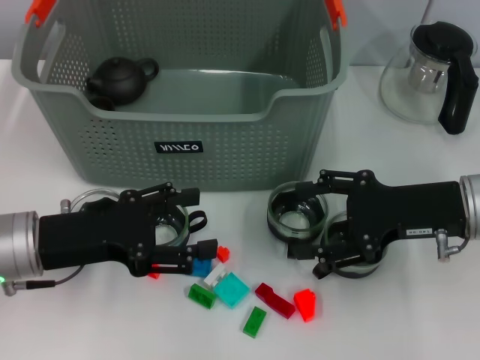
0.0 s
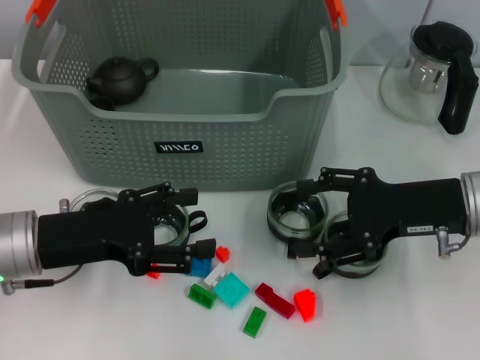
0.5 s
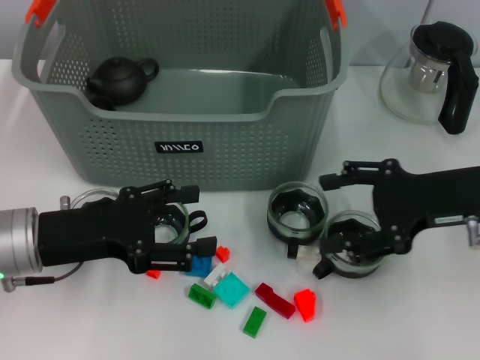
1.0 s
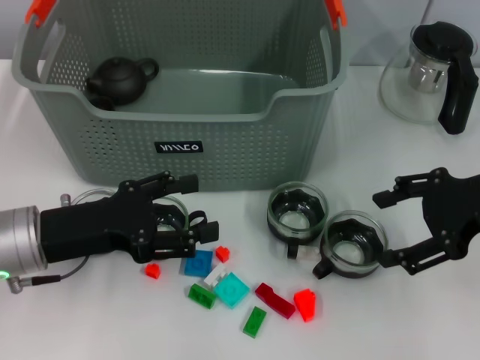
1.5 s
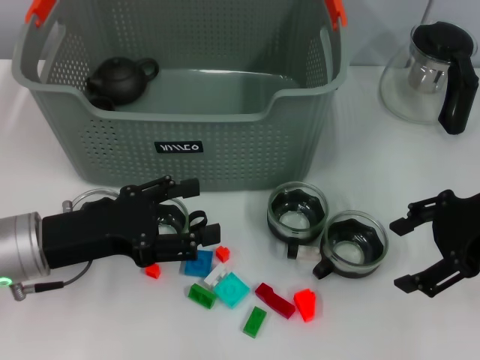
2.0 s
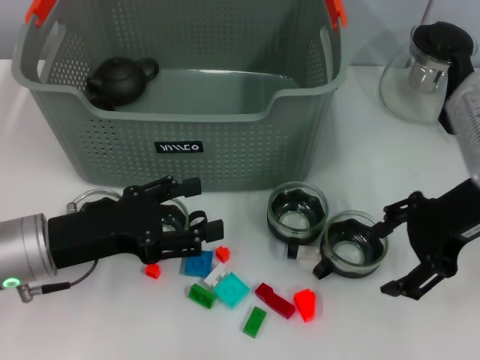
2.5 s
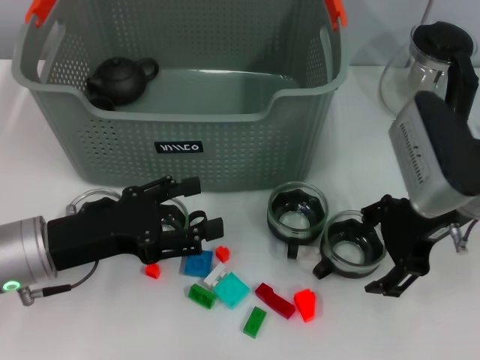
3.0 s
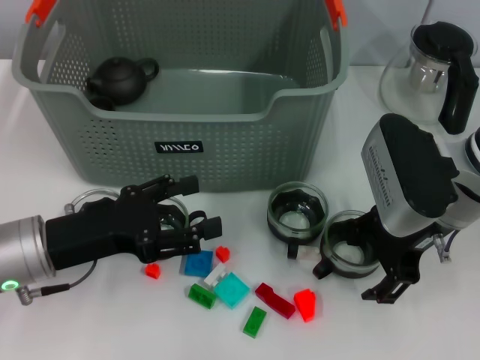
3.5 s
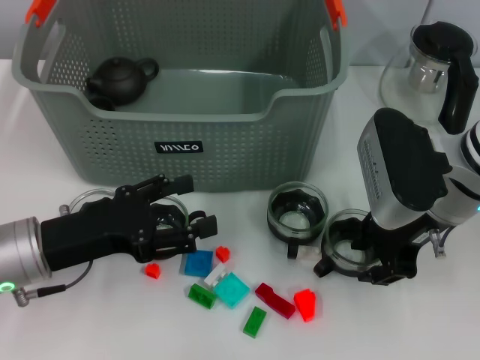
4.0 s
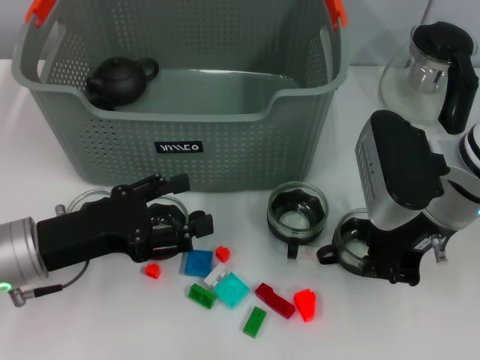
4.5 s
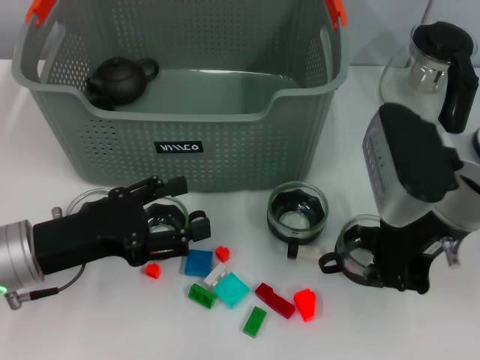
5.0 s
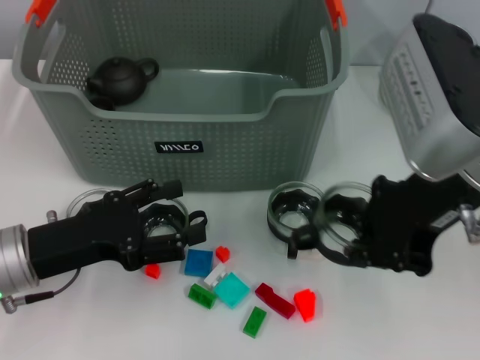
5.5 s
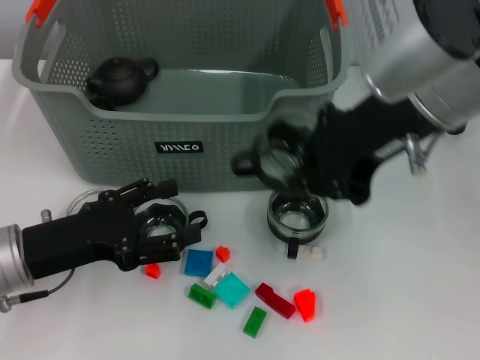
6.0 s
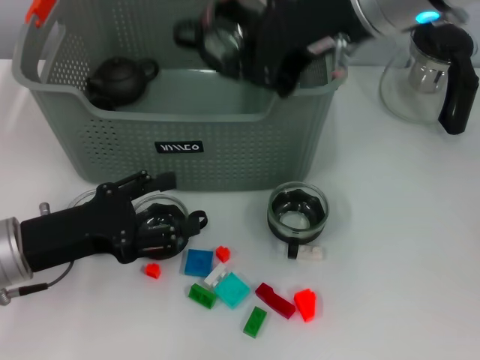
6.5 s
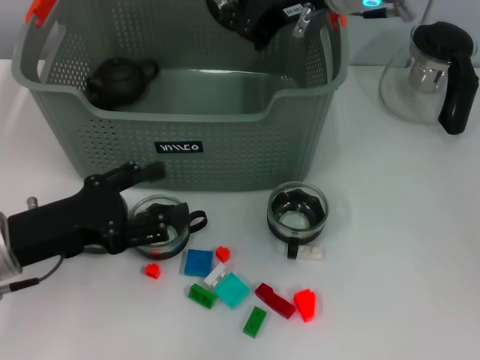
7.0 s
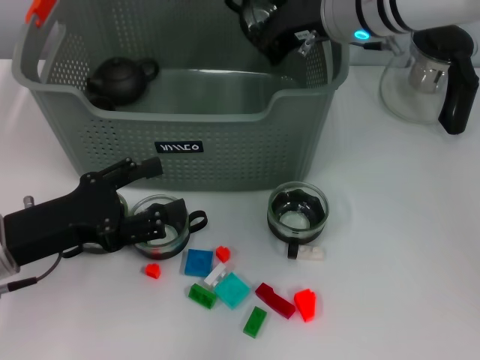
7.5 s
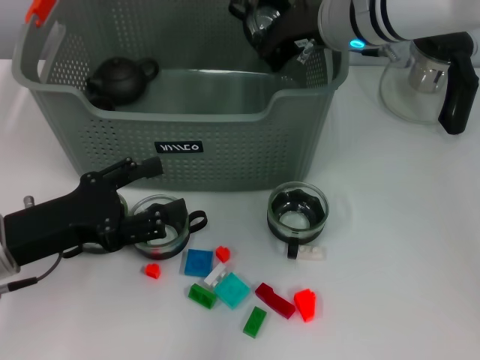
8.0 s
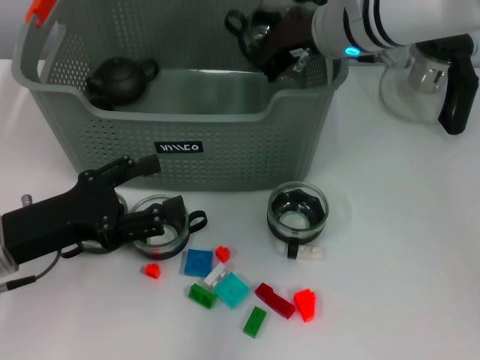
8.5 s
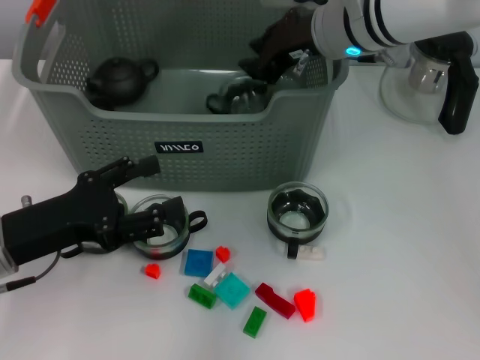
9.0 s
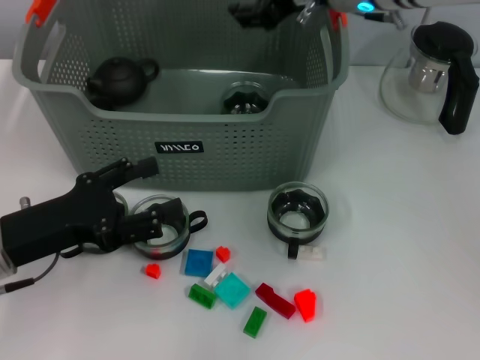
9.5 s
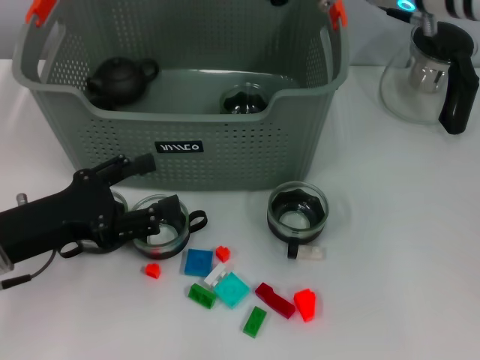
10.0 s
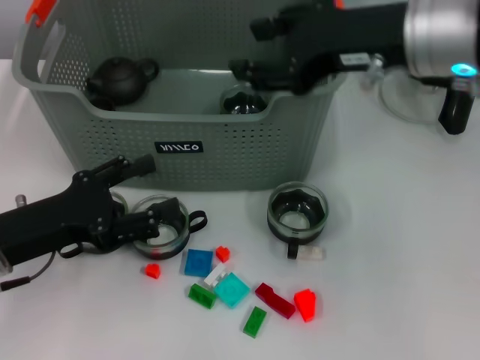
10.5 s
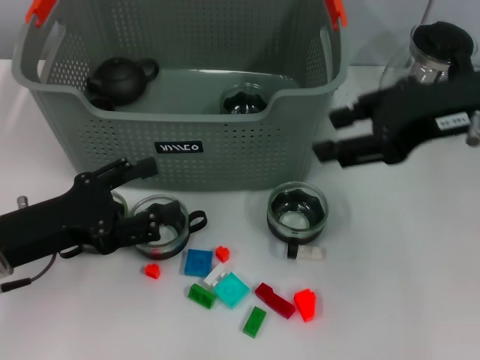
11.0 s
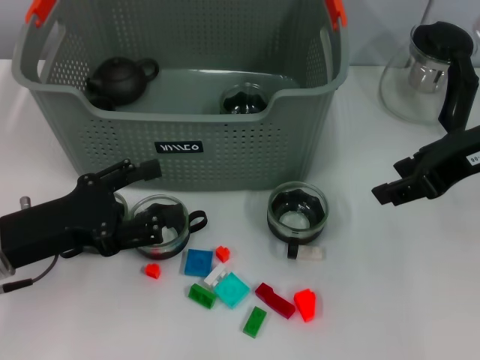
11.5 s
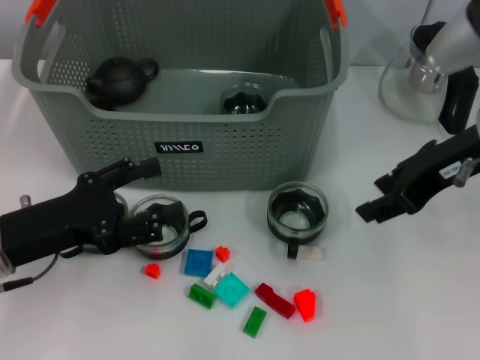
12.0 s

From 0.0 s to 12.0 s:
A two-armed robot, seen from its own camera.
Task of the whole recording: pick up the teacup on the table and place it into the storage bin, pick up the block on the table and place it into the storage bin.
Step, from 0.0 s to 4.5 s: Grasp the cup with right gripper.
Step, from 5.0 s to 8.5 s: Place the cup in the storage box with right gripper.
From 0.0 s to 2.0 s: The right gripper moves upward, about 5 cm.
From 2.0 s to 4.0 s: The right gripper heads to the left, covering about 10 cm.
From 4.0 s to 6.0 s: The right gripper goes about 15 cm upward, and closes its fingers.
From 6.0 s to 8.0 s: The right gripper goes approximately 15 cm forward and downward.
From 8.0 s to 10.0 s: The right gripper is displaced upward and backward by roughly 10 cm, and opens its fingers.
From 10.0 s to 12.0 s: The right gripper moves to the right and backward, approximately 10 cm.

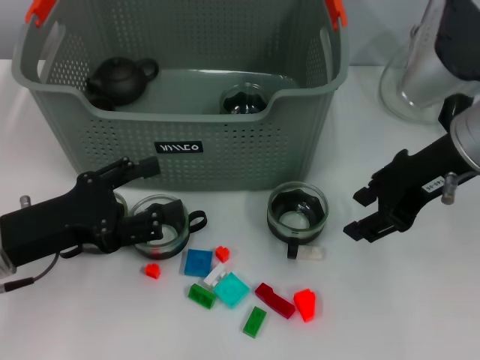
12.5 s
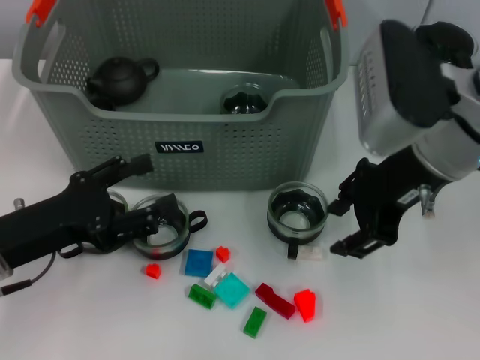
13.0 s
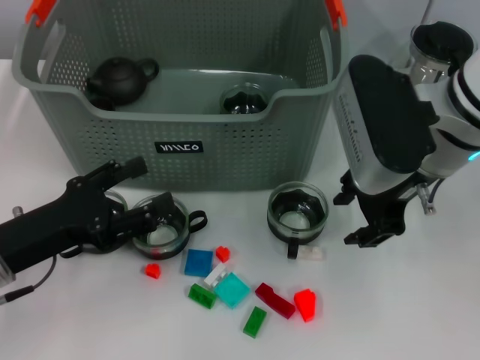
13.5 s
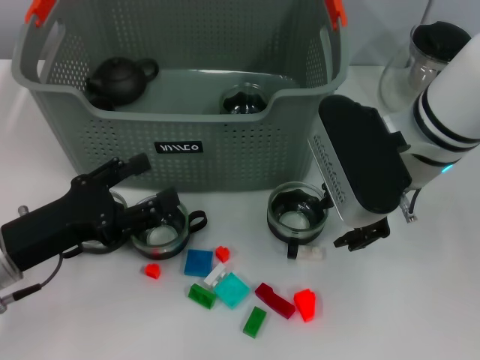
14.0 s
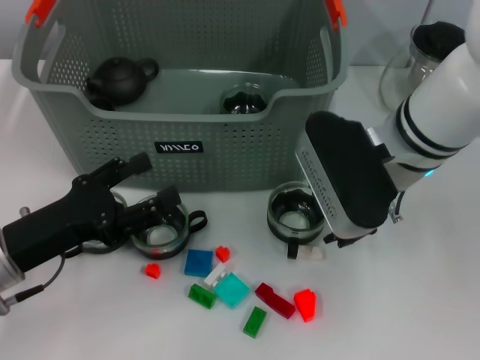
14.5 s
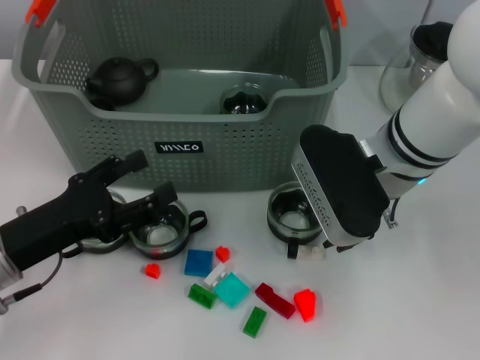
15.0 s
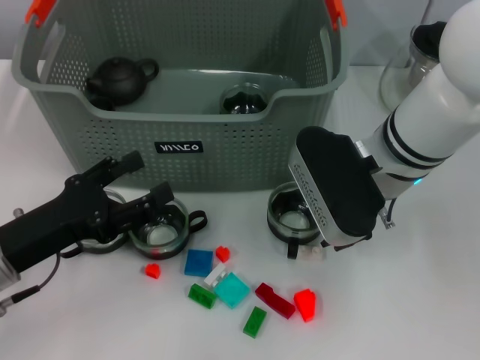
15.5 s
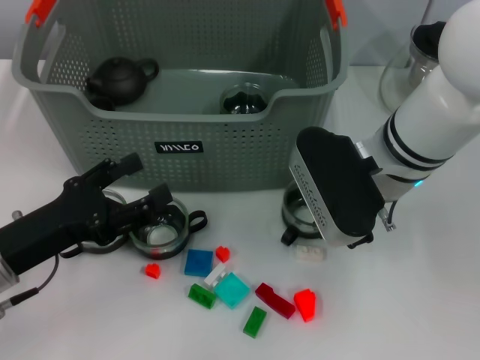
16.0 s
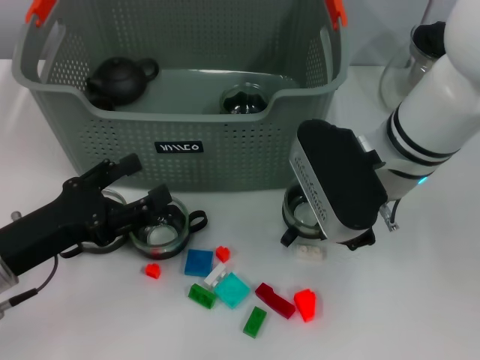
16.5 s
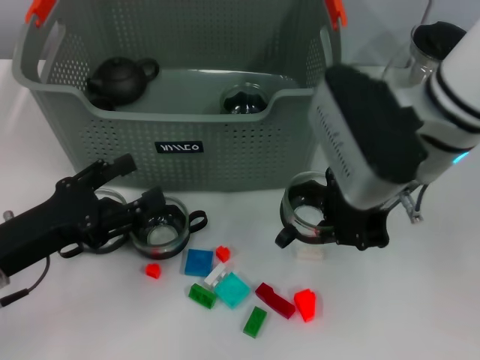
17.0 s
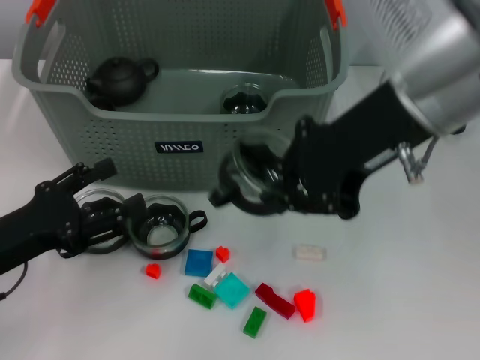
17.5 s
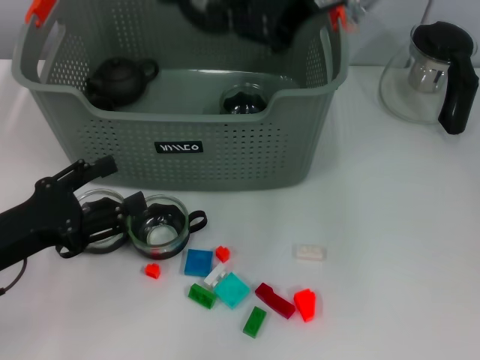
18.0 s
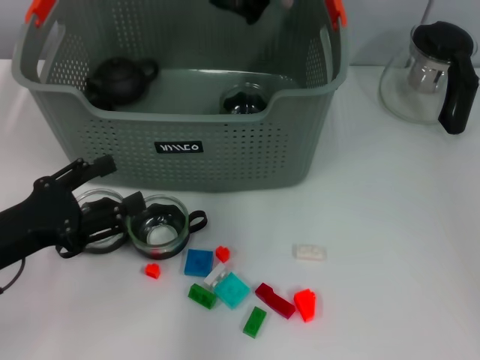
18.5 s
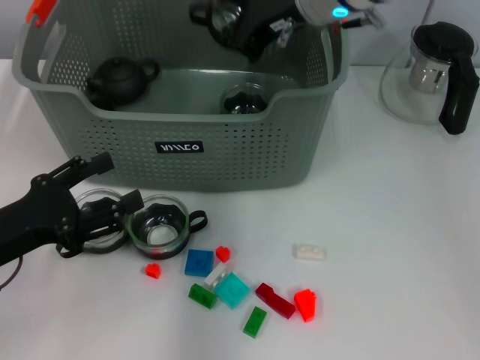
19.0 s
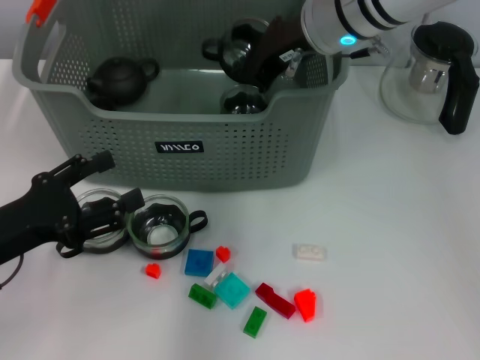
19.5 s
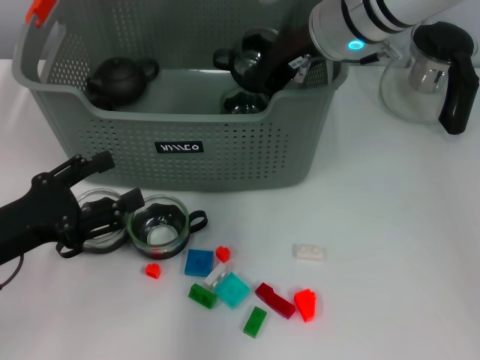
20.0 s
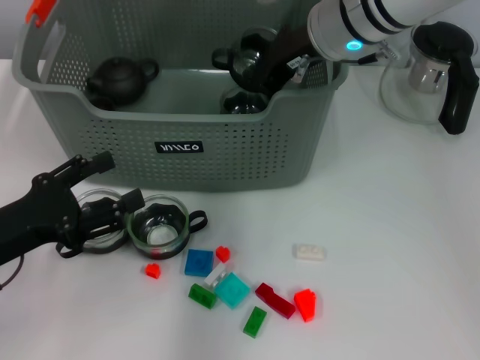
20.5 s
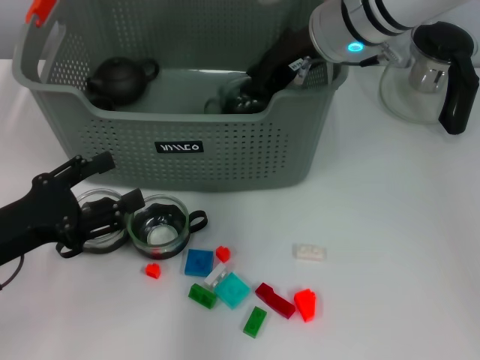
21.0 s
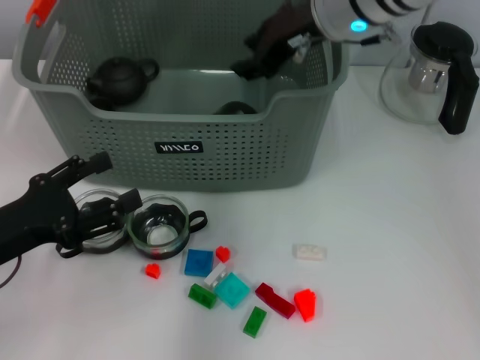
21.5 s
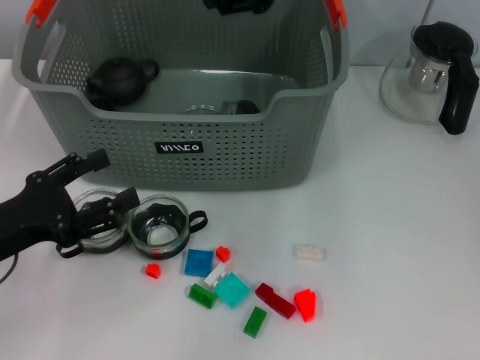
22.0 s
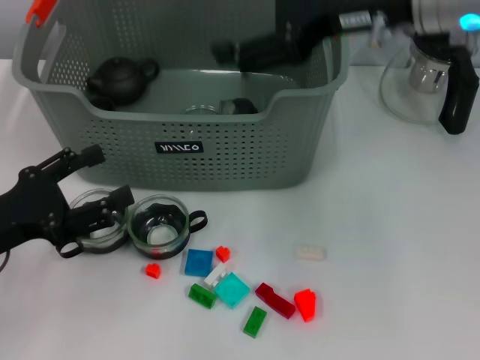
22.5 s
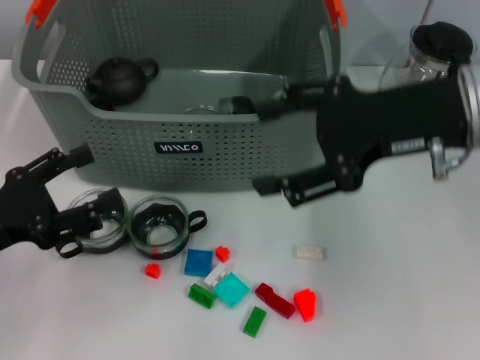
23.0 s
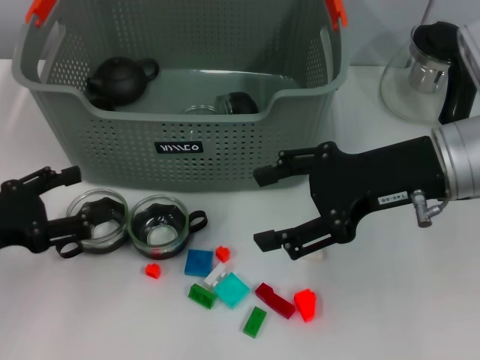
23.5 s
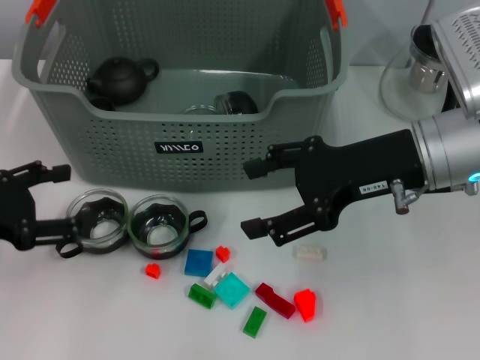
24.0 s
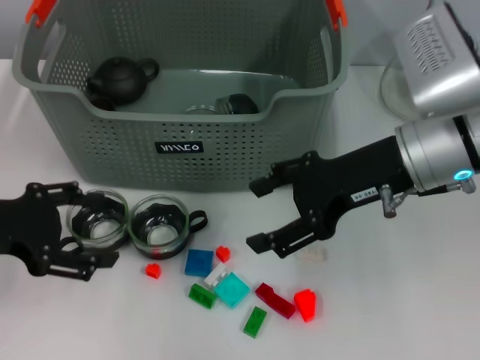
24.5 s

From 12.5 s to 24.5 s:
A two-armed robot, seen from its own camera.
Task of the whole recording: pick up the teacup on the table and place it into the storage bin, pick up the block on the table and place it into the storage bin.
Step, from 12.5 s to 16.0 s: Grasp the cup with right gripper.
Step, from 16.5 s to 20.5 s: Place the cup in the storage box with right gripper.
From 12.5 s to 14.5 s: The right gripper goes roughly 5 cm to the left.
From 14.5 s to 16.5 s: The right gripper closes up.
From 16.5 s to 18.5 s: The right gripper shifts some 15 cm upward and forward.
From 18.5 s to 20.5 s: The right gripper heads downward, covering about 5 cm.
From 20.5 s to 22.5 s: The right gripper shifts some 10 cm backward, upward and to the right, and opens its fingers.
From 22.5 s to 24.5 s: The left gripper heads upward, covering roughly 5 cm, while the right gripper goes about 10 cm downward.

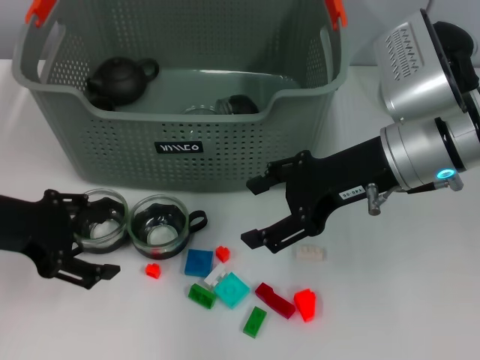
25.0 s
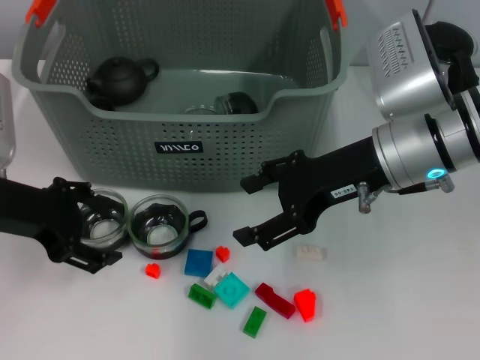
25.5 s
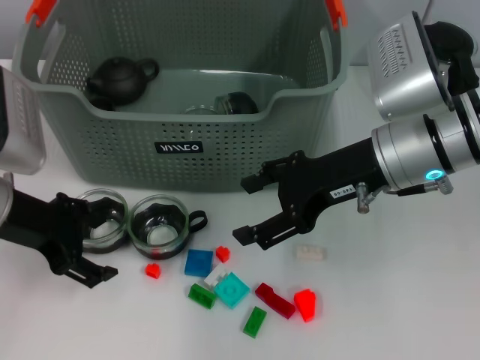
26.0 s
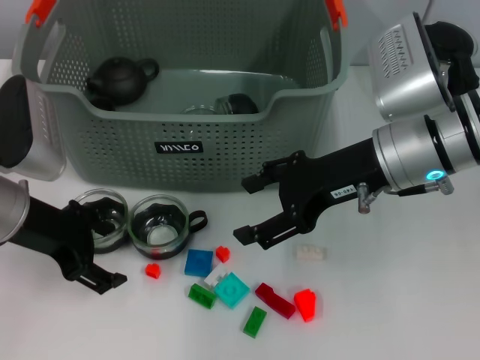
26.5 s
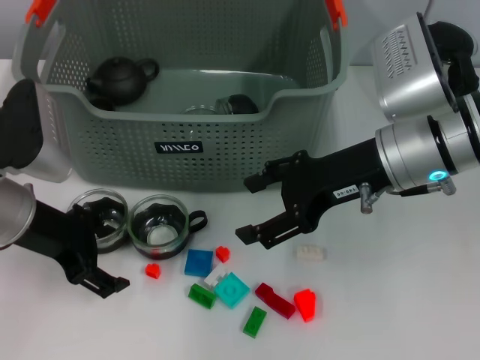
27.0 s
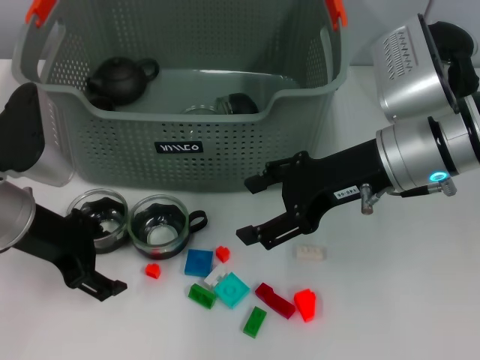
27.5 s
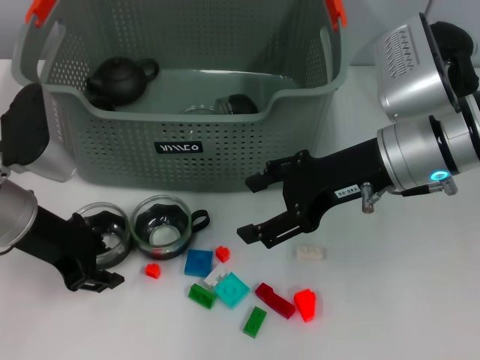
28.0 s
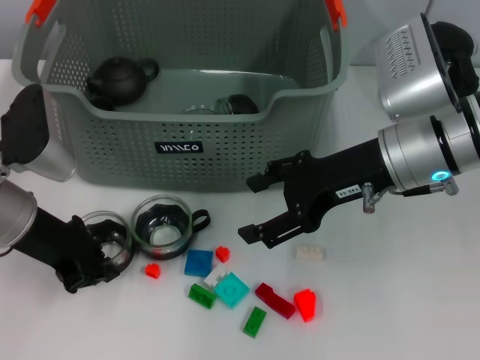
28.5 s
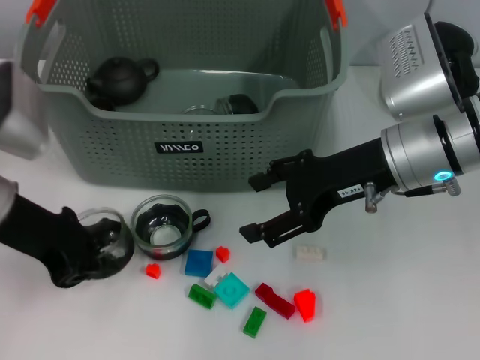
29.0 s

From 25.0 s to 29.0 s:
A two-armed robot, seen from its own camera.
Task of the whole recording: pick up the teacup on the table and place it into the storage bin, pick up the block on the table and place it into the storage bin.
Step, from 25.0 s to 28.5 s: Grasp the cup with left gripper.
From 25.0 s to 27.0 s: The left gripper shifts by about 5 cm.
From 27.0 s to 29.0 s: The left gripper closes.
